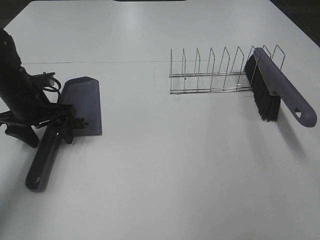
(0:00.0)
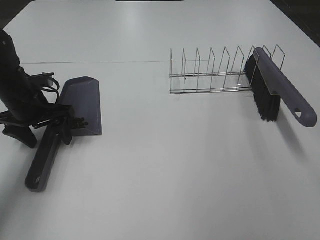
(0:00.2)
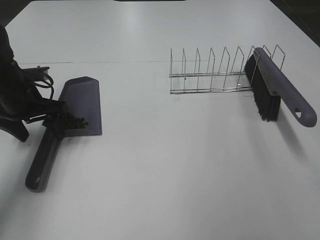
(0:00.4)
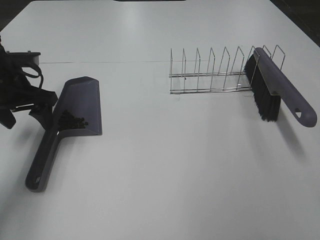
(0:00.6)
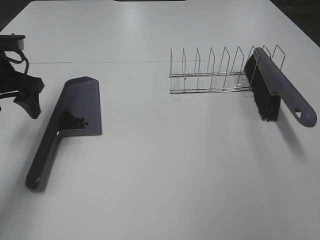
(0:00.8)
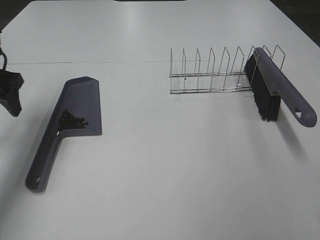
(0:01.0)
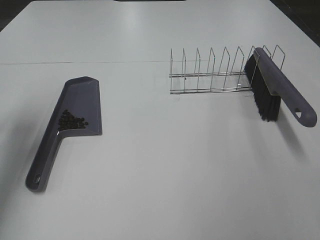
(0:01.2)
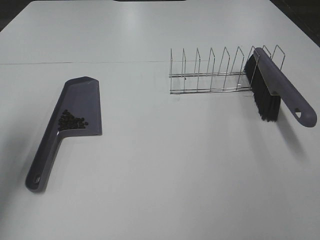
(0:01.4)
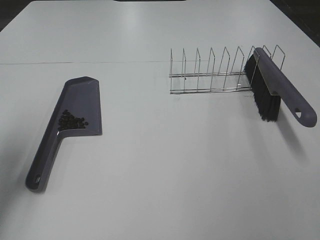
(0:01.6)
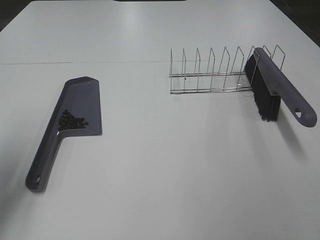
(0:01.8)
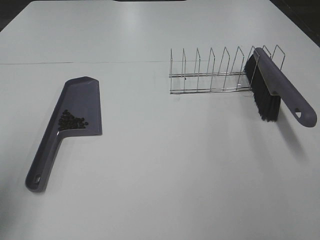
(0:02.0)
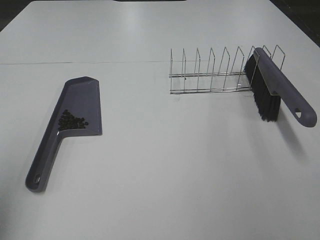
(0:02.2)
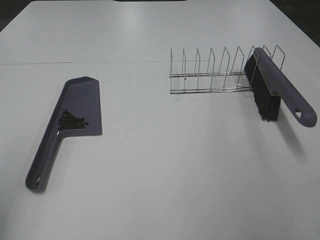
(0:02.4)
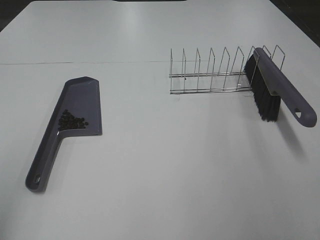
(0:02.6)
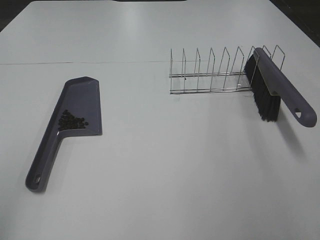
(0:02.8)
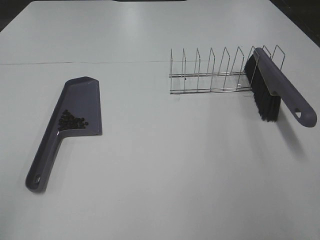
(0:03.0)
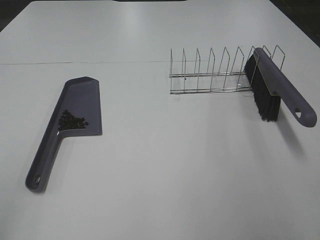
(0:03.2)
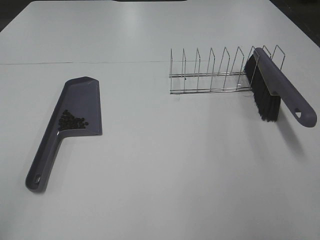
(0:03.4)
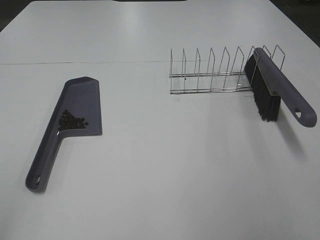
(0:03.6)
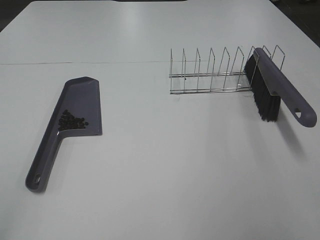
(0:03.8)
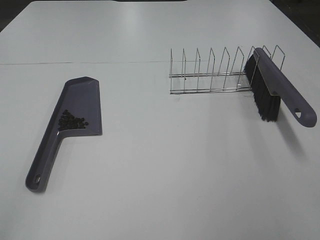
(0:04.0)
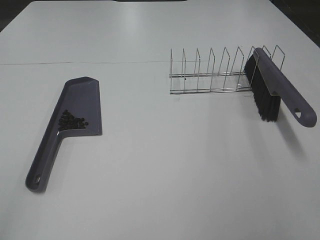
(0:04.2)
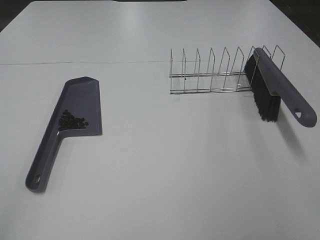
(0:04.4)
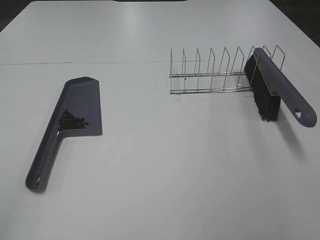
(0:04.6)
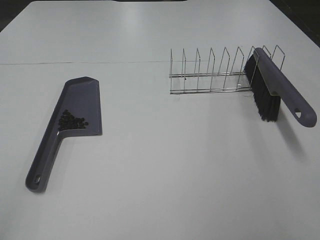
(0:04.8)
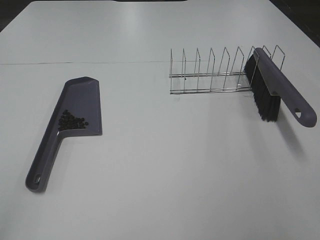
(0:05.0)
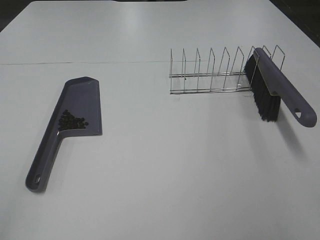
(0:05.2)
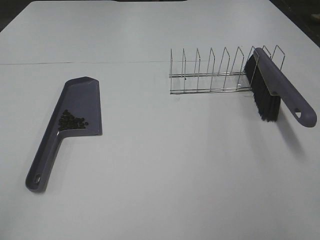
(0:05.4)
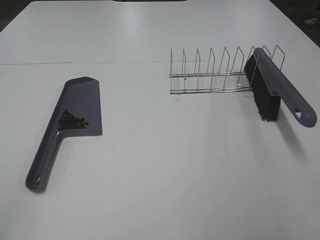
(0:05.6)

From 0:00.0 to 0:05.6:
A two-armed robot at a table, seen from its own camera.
Task of the whole recording: Sweep Coffee Bean.
From 0:00.0 to 0:01.4: The left gripper moves upward, backward and to the left, about 15 cm.
From 0:01.4 to 0:02.8: The left gripper moves backward, roughly 25 cm.
From 0:04.2 to 0:05.6: The two grippers keep their place.

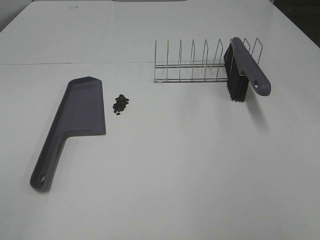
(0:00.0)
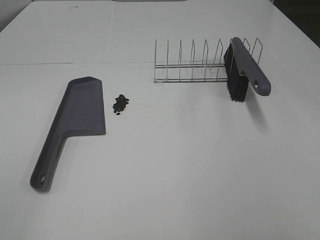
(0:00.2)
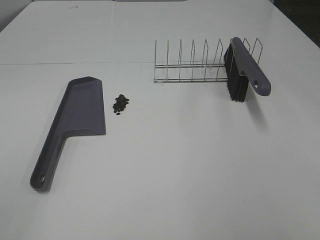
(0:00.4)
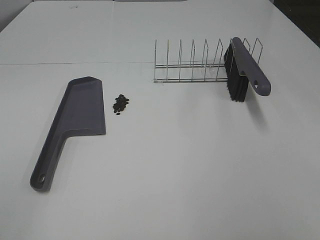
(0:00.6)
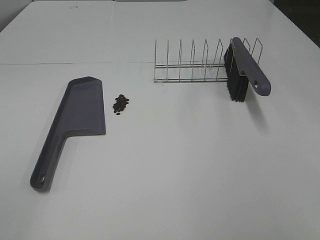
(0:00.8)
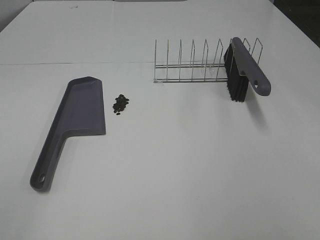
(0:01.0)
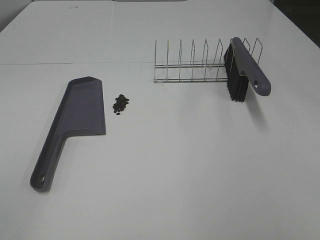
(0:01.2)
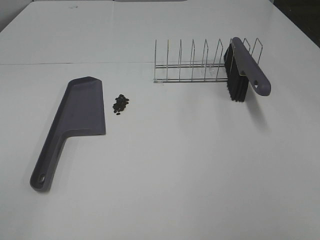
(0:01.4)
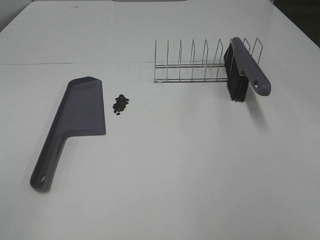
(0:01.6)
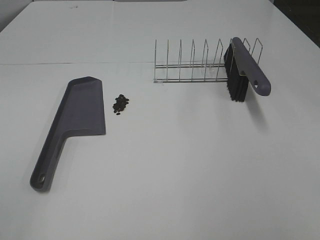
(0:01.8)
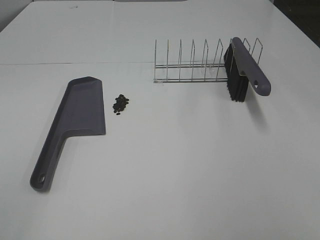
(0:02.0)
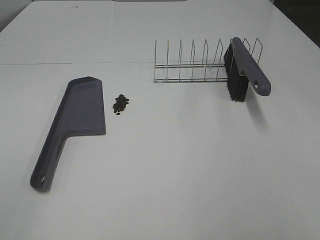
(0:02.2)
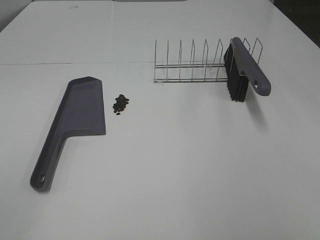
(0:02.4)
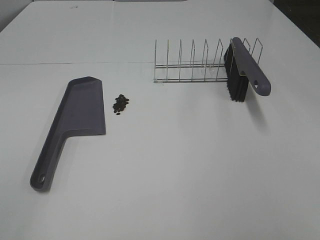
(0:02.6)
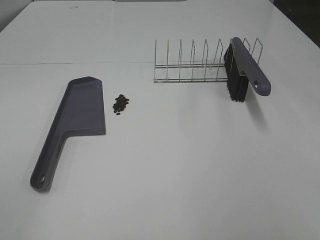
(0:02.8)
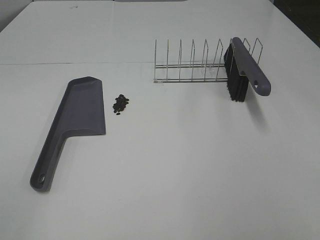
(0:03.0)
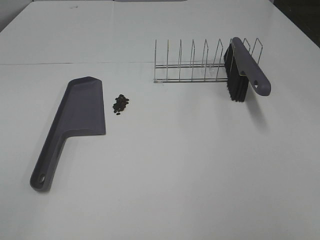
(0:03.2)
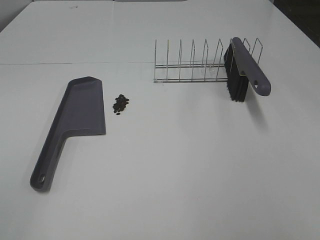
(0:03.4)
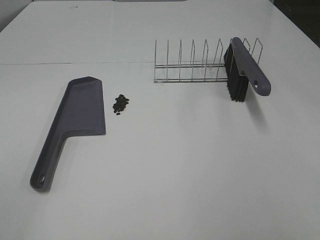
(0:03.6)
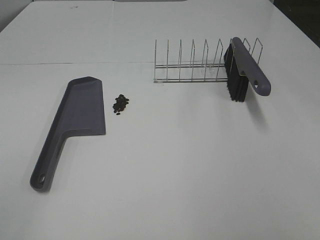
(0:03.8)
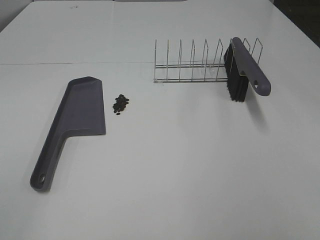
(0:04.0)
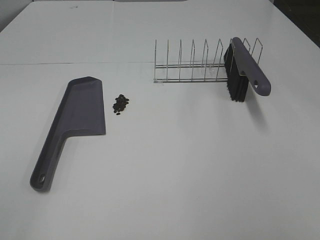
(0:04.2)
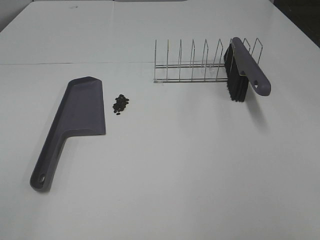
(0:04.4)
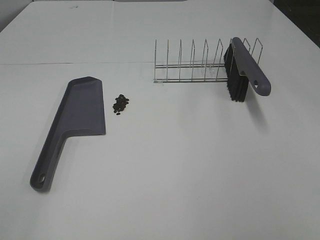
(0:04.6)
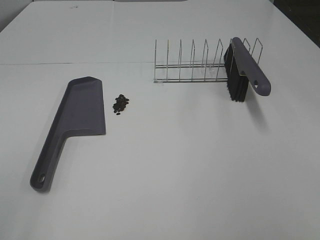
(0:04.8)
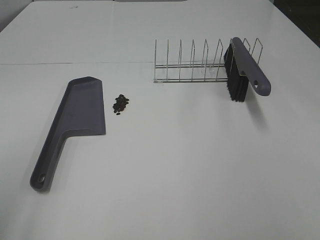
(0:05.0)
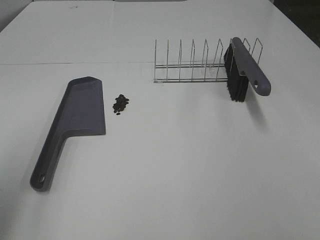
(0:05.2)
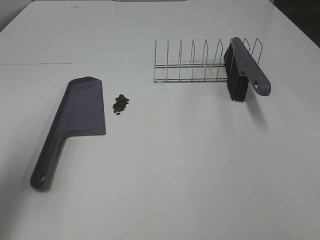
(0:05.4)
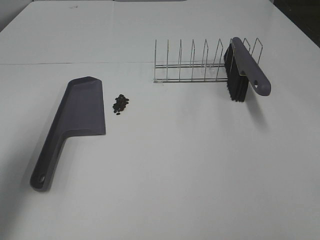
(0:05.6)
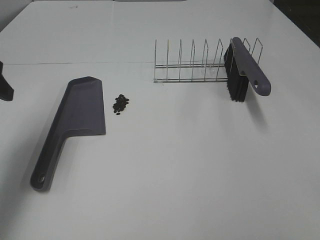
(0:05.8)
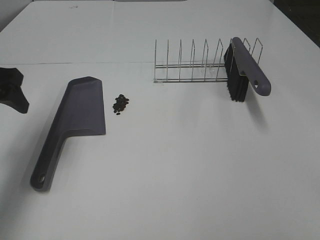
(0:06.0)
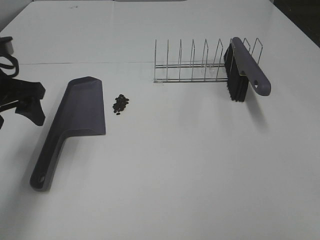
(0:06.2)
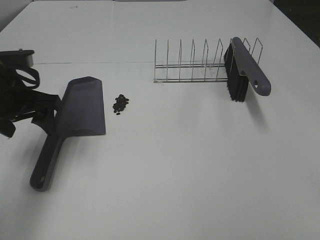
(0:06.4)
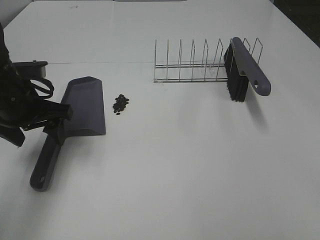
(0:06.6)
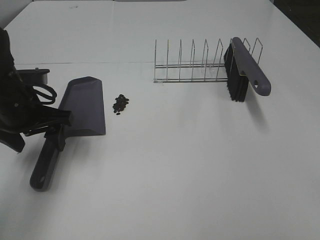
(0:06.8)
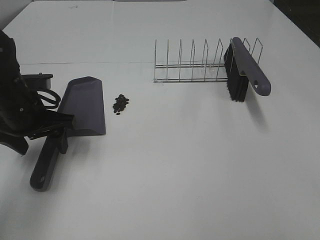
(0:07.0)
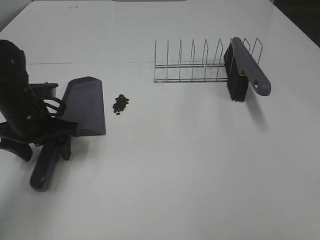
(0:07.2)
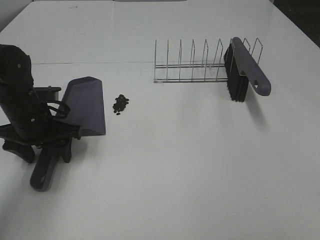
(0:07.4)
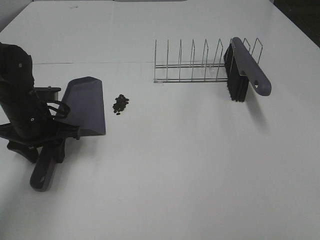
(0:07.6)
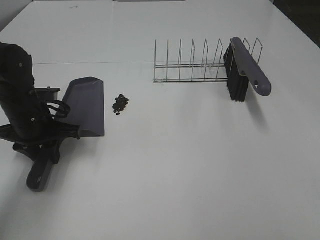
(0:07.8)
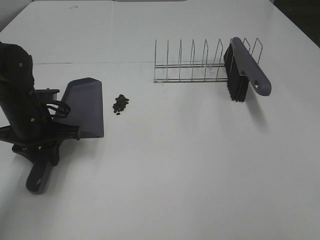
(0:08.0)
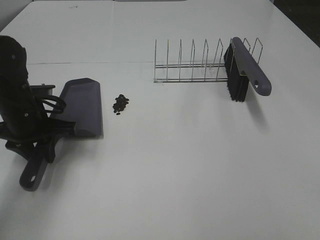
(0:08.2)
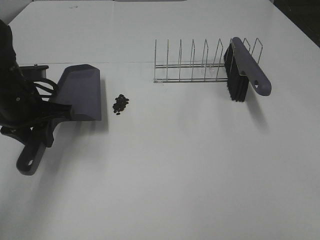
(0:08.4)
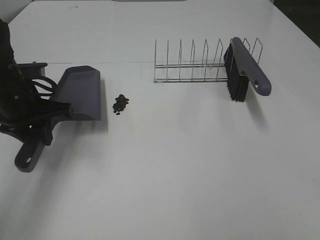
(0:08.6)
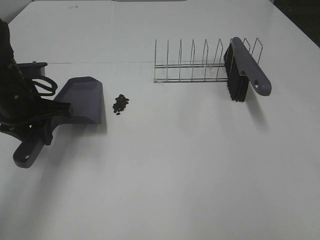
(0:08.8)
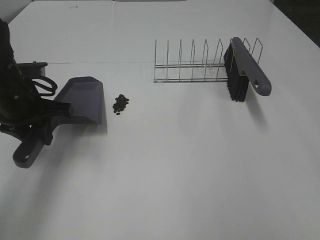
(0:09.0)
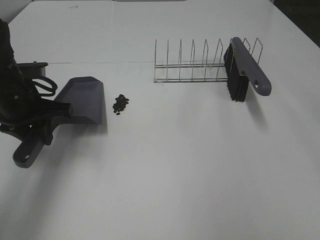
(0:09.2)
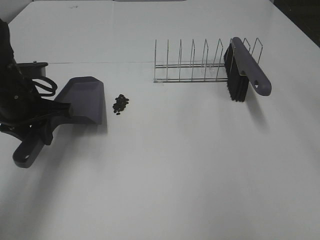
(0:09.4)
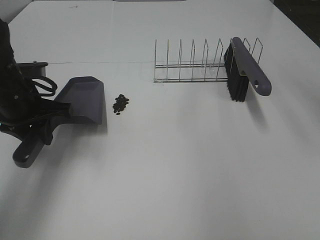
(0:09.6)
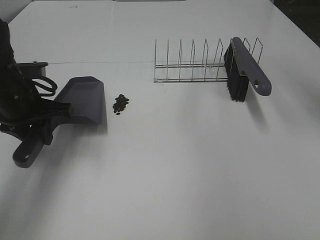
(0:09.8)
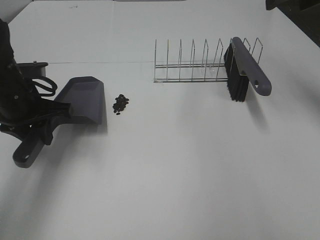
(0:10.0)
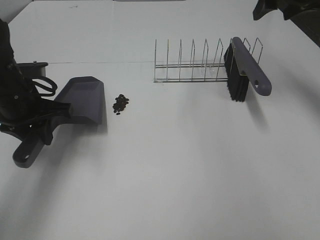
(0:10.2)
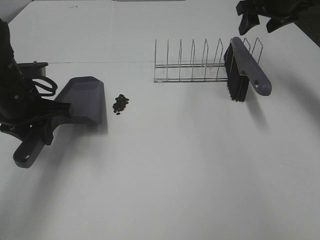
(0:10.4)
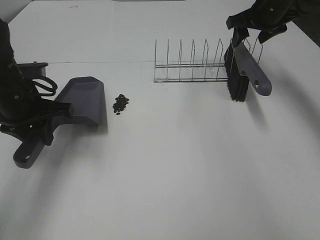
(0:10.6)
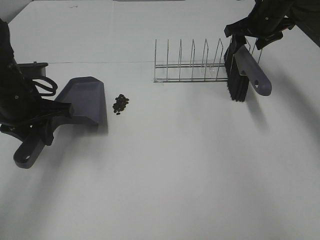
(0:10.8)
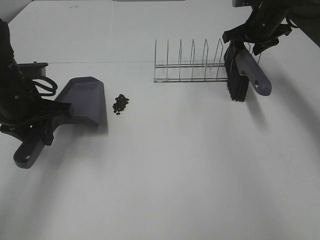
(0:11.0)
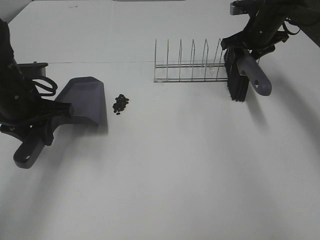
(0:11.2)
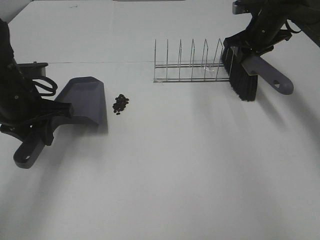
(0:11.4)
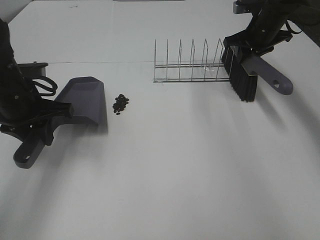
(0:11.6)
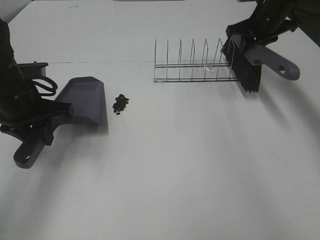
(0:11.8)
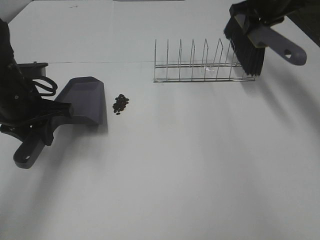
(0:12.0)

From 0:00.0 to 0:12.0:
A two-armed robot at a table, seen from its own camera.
Task of the whole recording: Sweep Coffee Bean.
Step, from 0:00.0 to 0:07.8: Left hand: grab the dustpan.
Step, from 0:08.6 to 0:11.2: Right hand:grab the broom.
From 0:00.0 to 0:04.4: Neither gripper changes place.
From 0:04.4 to 0:06.0: The left gripper shifts approximately 30 cm forward.
From 0:06.0 to 0:07.6: The left gripper moves downward and to the right, some 15 cm, and closes its fingers.
From 0:07.6 to 0:09.0: The left gripper moves upward, roughly 5 cm, and closes.
From 0:09.0 to 0:10.4: The right gripper is displaced forward by some 40 cm.
From 0:10.4 to 0:12.0: The right gripper reaches some 10 cm downward, then returns, and closes up.

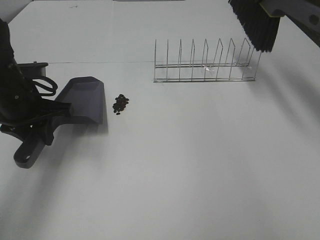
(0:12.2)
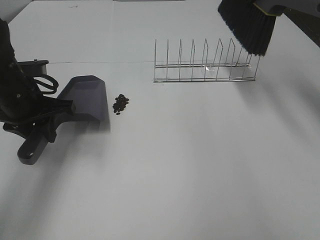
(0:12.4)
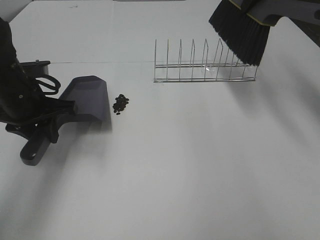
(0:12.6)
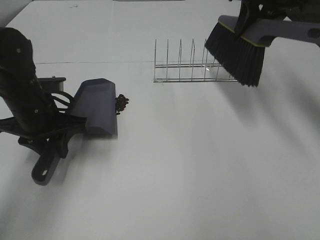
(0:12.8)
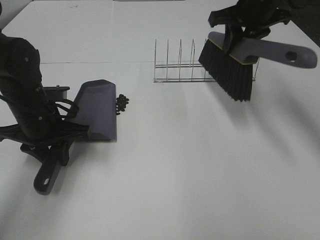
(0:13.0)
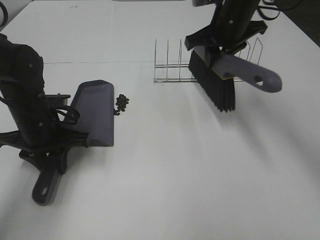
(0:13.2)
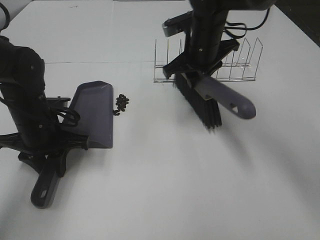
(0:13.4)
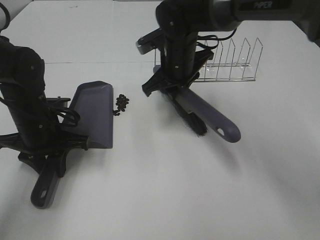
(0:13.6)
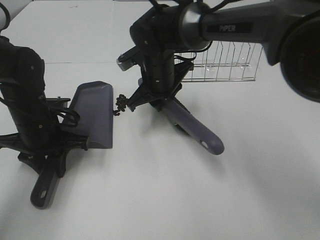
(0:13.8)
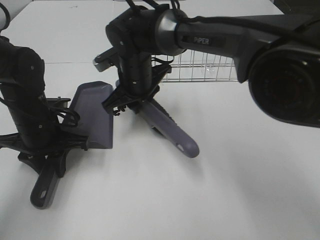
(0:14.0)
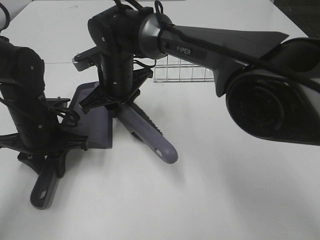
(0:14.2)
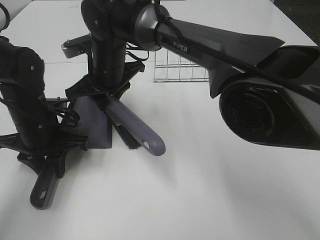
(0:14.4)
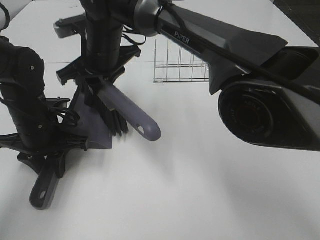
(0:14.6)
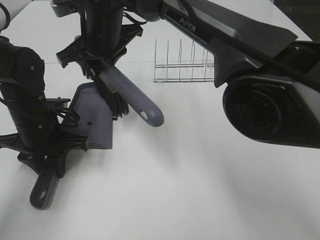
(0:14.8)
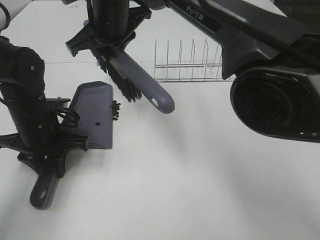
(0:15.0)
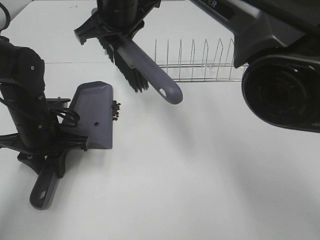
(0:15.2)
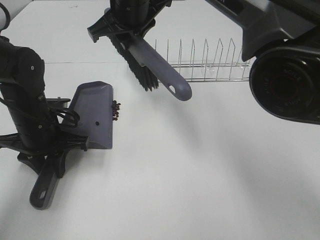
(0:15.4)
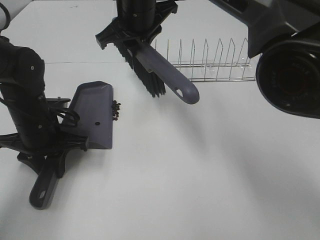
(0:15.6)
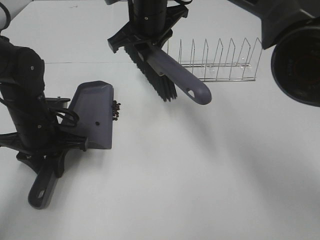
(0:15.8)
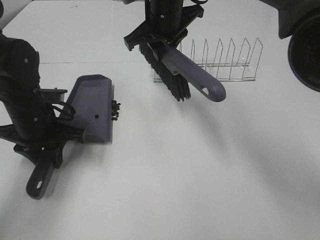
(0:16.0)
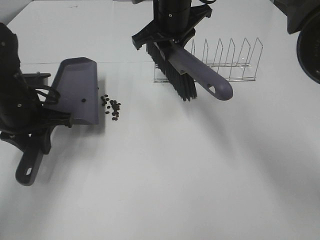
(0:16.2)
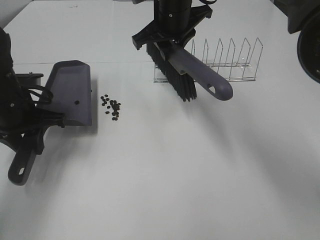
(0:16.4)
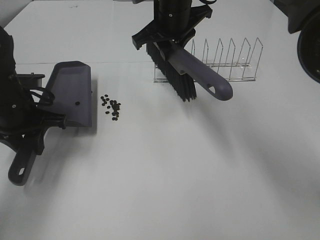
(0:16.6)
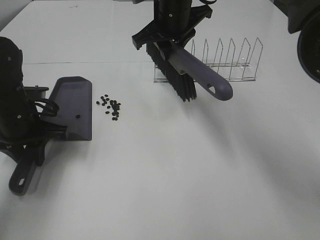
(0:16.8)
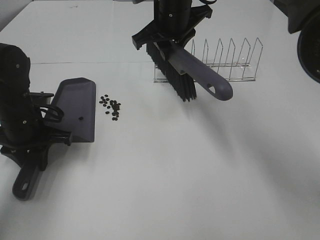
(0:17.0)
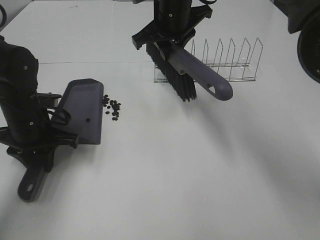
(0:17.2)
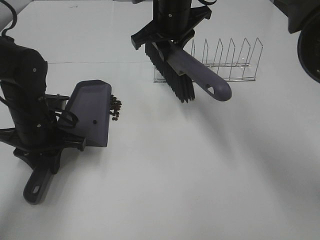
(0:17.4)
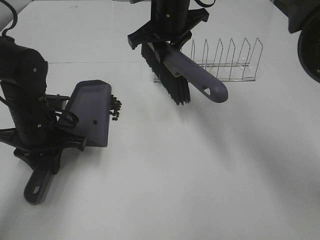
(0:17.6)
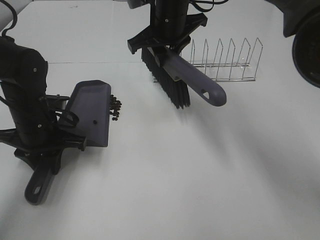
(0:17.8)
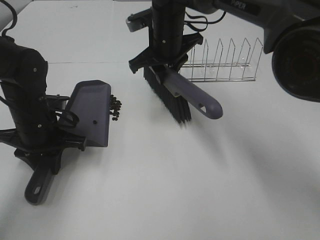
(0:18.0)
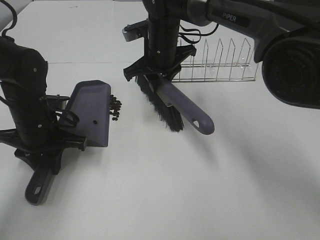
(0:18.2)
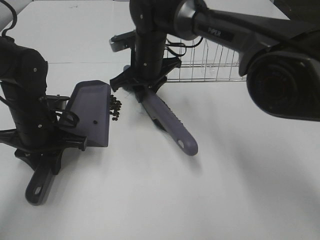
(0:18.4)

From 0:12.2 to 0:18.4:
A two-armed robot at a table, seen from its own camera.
Task of the whole recording: Sweep Coffee Bean.
From 0:12.2 to 0:13.8: The left gripper goes roughly 5 cm downward; the right gripper goes roughly 30 cm to the left and downward.
From 0:13.8 to 0:15.4: The right gripper is displaced upward by roughly 15 cm.
From 0:15.4 to 0:16.8: The right gripper moves to the right, some 5 cm.
From 0:16.8 to 0:18.4: The right gripper moves downward, roughly 10 cm.
